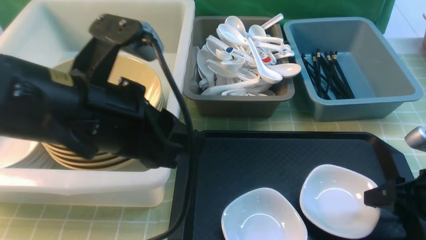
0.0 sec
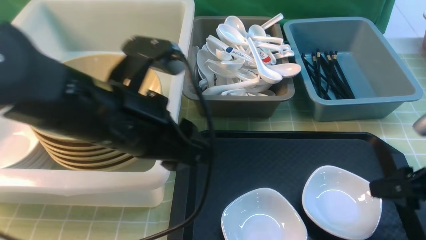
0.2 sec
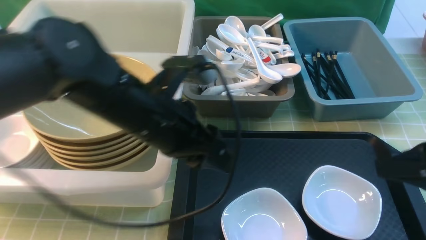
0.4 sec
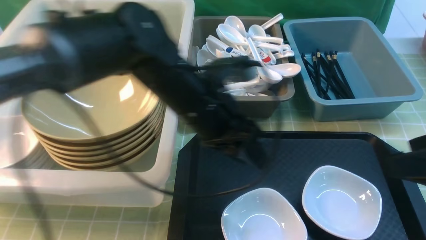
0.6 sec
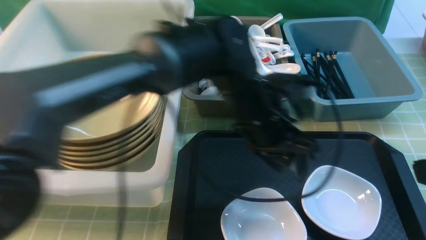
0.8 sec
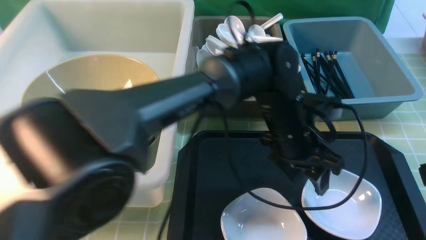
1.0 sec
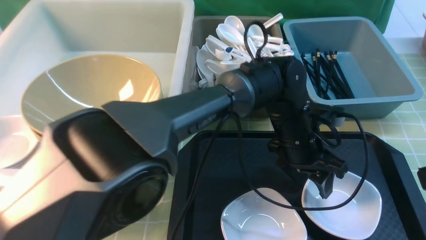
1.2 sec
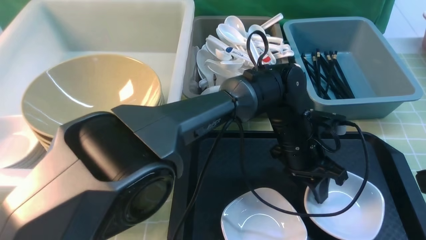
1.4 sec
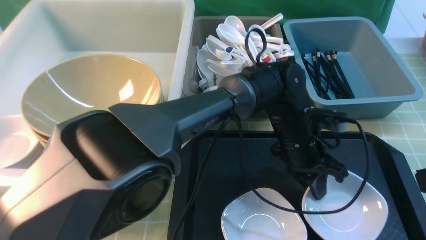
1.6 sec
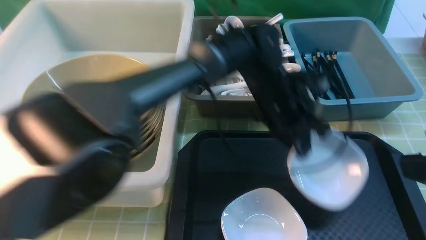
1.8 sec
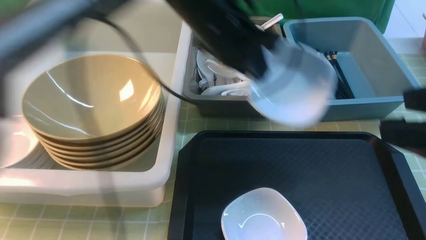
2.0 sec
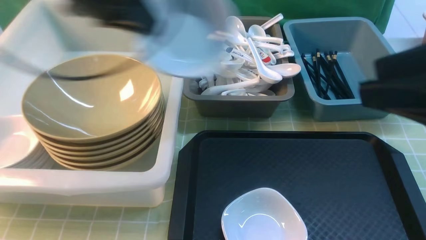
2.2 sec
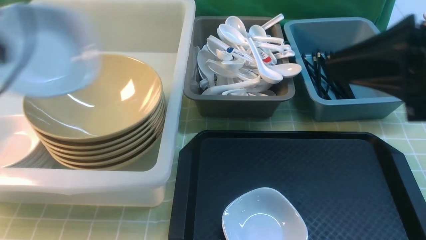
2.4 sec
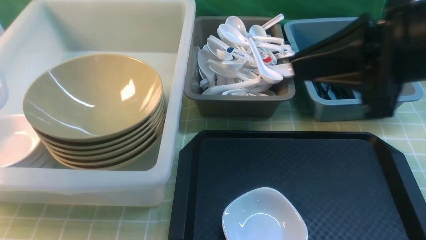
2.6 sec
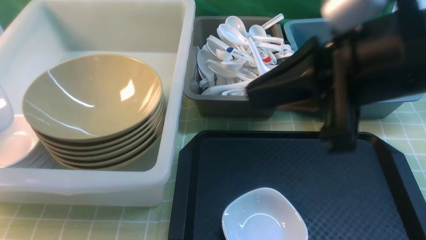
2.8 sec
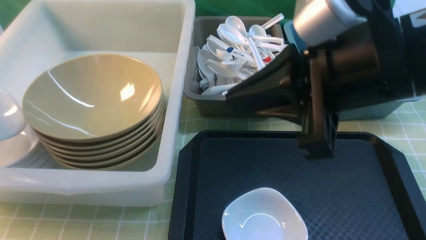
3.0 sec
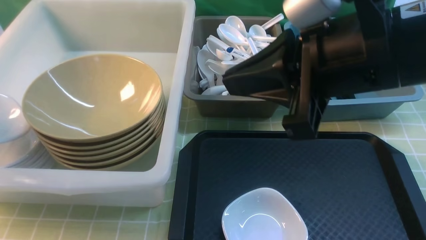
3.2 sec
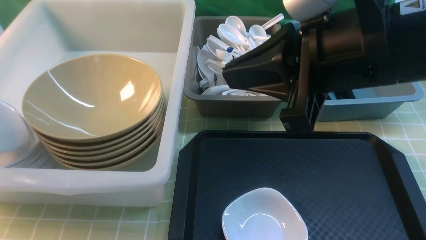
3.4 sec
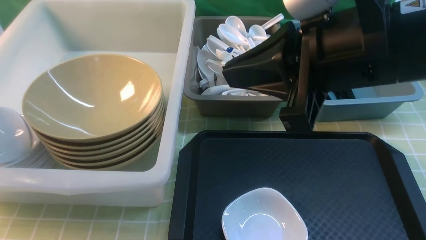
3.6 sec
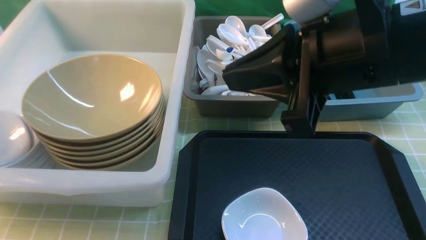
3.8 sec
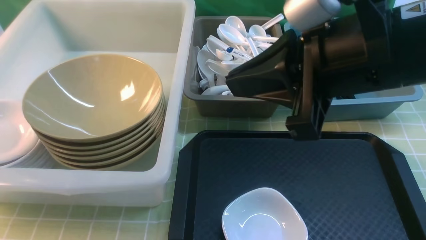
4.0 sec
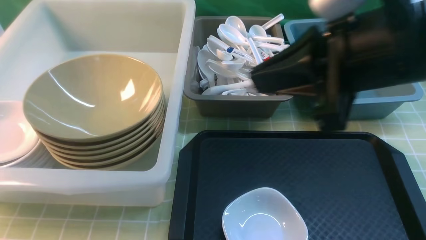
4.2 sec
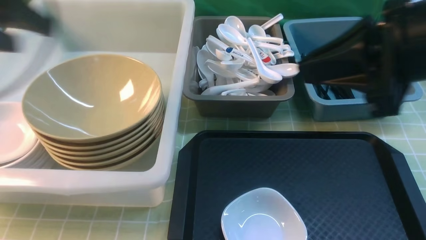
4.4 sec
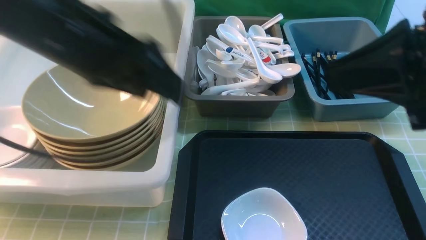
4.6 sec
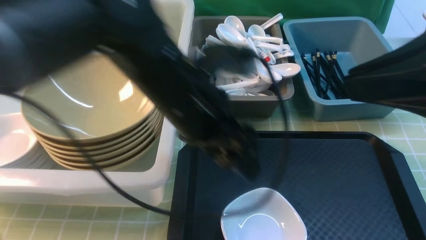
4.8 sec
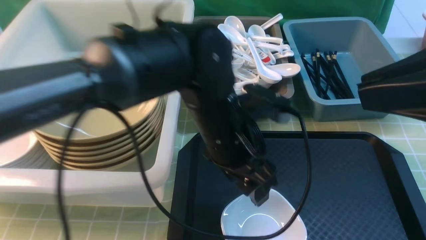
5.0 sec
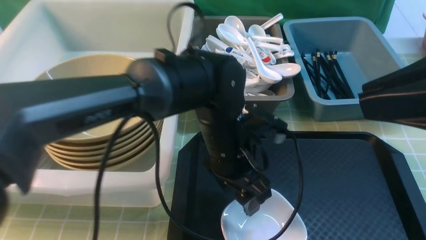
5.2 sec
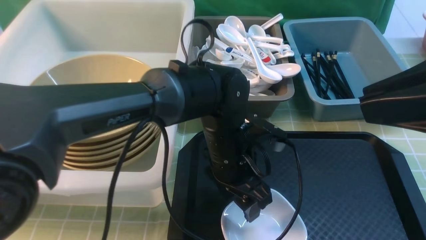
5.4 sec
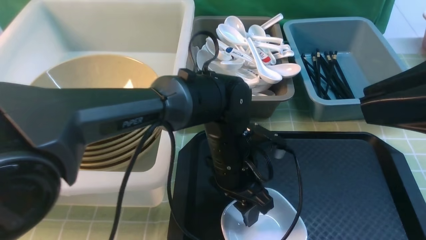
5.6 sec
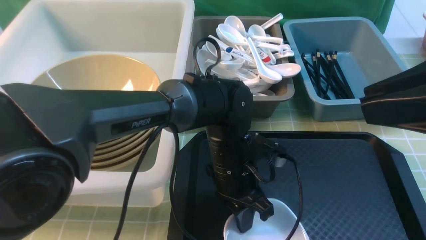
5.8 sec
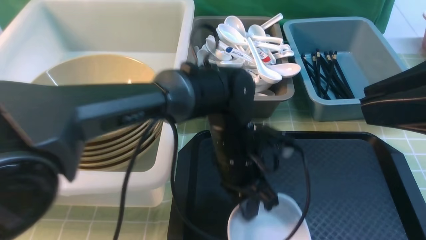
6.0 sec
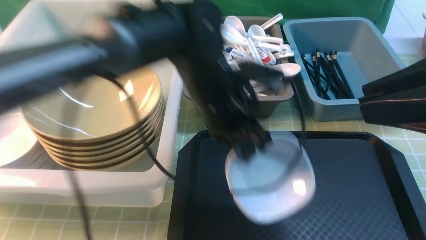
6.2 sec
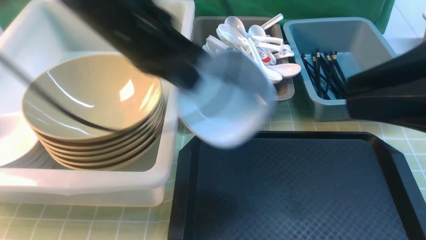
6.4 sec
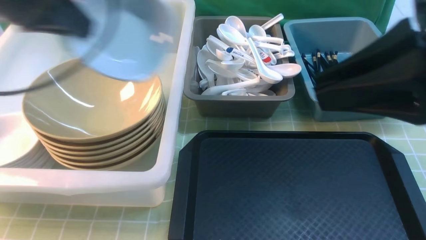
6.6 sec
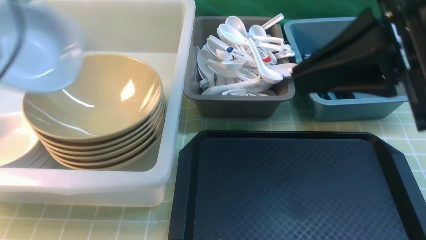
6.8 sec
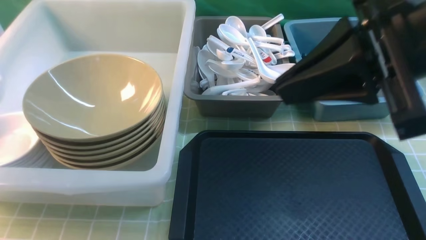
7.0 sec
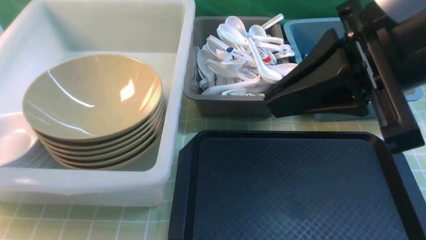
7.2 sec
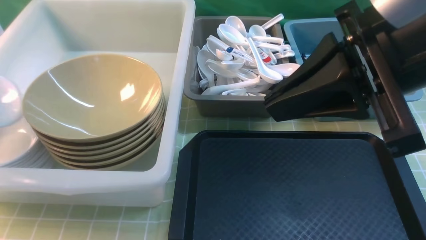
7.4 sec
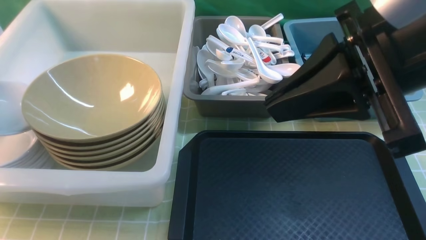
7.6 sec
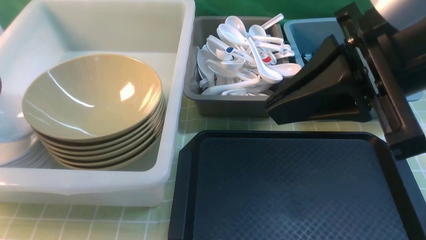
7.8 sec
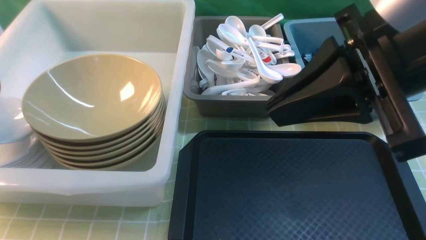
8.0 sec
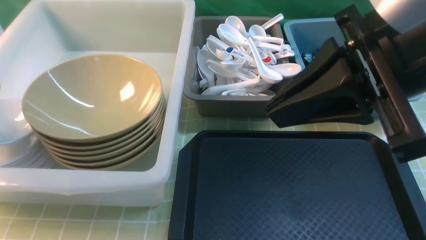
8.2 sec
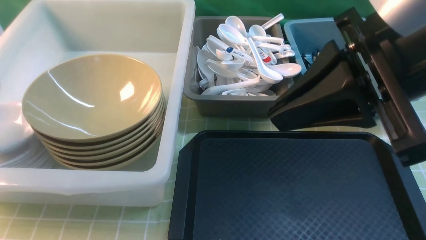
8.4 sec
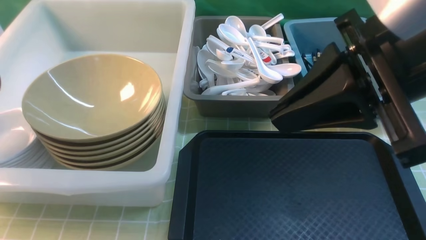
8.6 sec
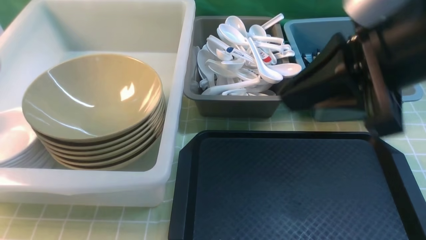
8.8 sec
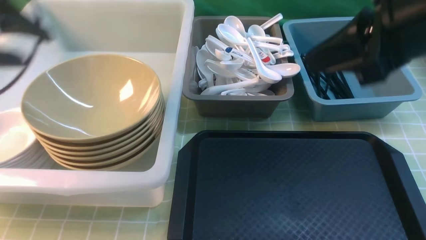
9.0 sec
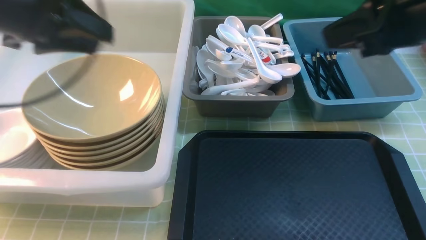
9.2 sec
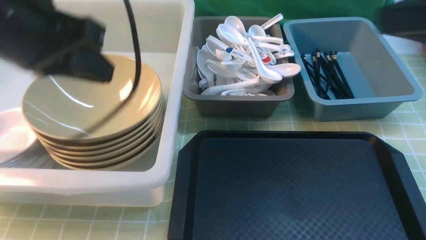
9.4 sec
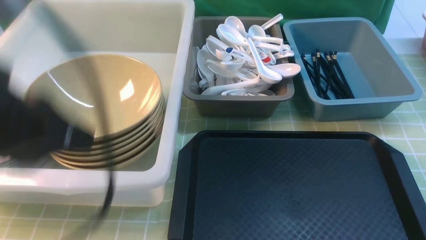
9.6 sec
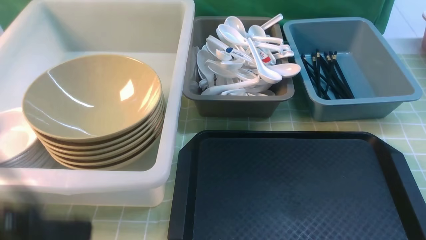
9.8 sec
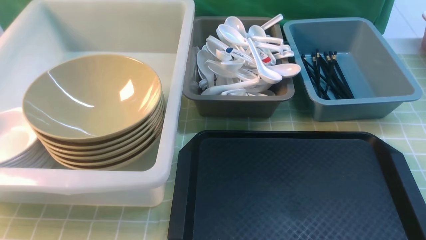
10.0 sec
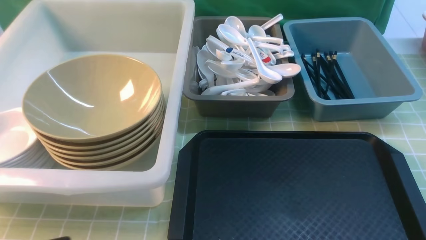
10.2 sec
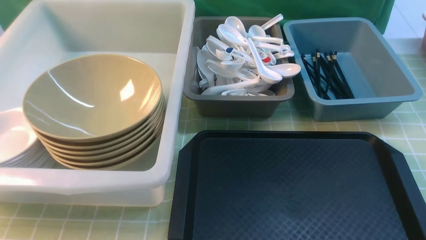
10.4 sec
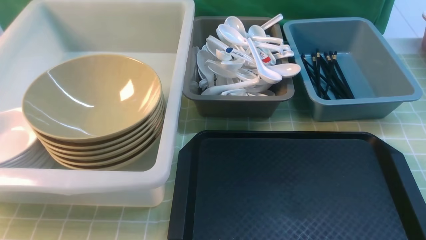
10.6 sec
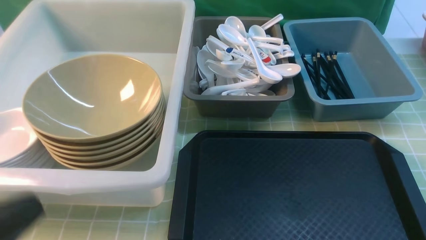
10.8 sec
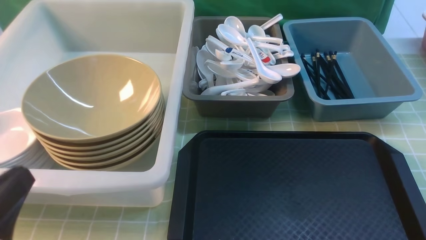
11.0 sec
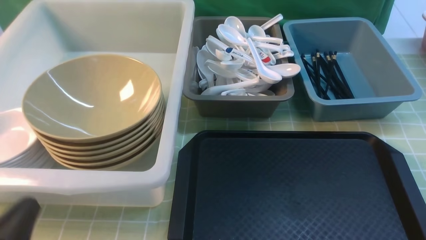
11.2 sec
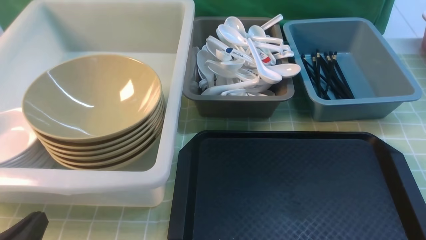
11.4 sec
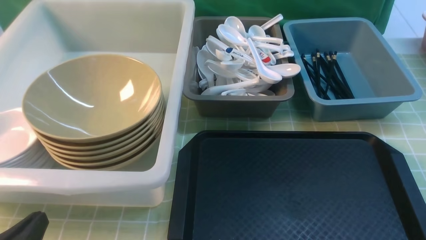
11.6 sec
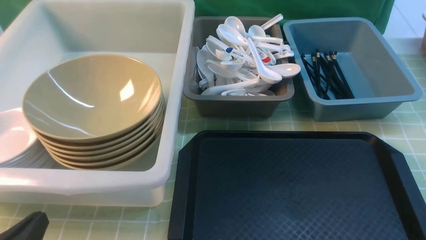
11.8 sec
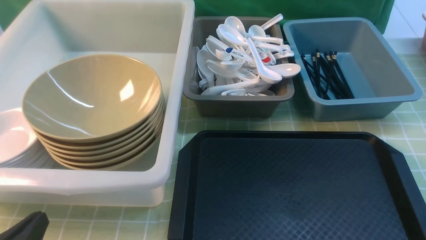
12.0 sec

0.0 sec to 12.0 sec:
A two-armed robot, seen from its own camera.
Task of the whole recording: on green table put chopsticks spoon bowls plates into blue grey white boxes.
Step, 0.8 sec to 1.6 sec: use the left arm to grab the plate.
Step, 1.8 sec to 4.2 sec: use the left arm to put the plate into the large storage box on the left.
Step, 4.4 sec to 6.0 sec: use the left arm to grab the plate.
Step, 6.2 sec to 8.8 sec: use the left arm to put the plate into the large storage box on the left.
0.0 sec to 1.6 sec: The left gripper goes some 30 cm to the right, downward and forward, and closes up. The right gripper travels upward and backward by about 20 cm.
1.6 sec to 3.0 sec: The left gripper shifts some 50 cm to the left. The right gripper travels to the left and forward by some 15 cm, and closes.
3.0 sec to 4.4 sec: The right gripper travels to the right by approximately 5 cm. The left gripper heads to the right and upward, covering some 20 cm, and opens up.
4.4 sec to 6.0 sec: The right gripper goes approximately 5 cm backward; the left gripper shifts approximately 30 cm to the right and downward, and closes.
6.0 sec to 7.6 sec: The right gripper goes approximately 10 cm to the left and forward; the left gripper goes some 40 cm to the left.
7.6 sec to 9.0 sec: The left gripper shifts roughly 15 cm to the right and upward, and opens up.
9.0 sec to 10.4 sec: The right gripper goes some 25 cm backward, downward and to the right; the left gripper is displaced backward by about 30 cm, and closes its fingers.
10.4 sec to 12.0 sec: The left gripper shifts approximately 15 cm downward.

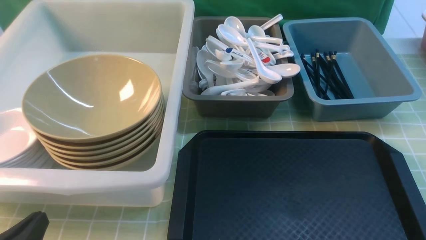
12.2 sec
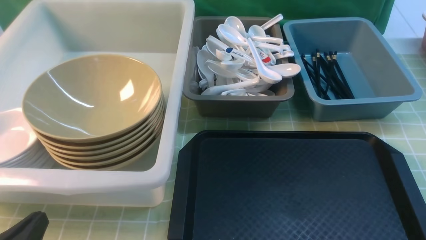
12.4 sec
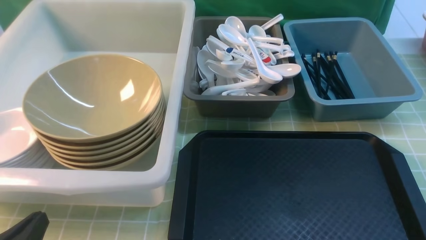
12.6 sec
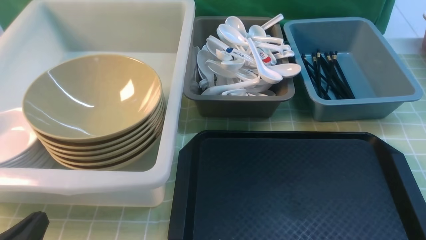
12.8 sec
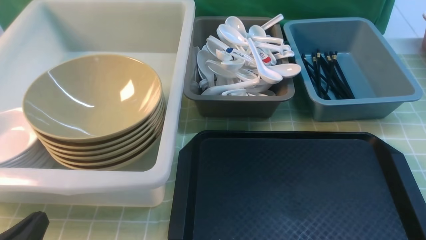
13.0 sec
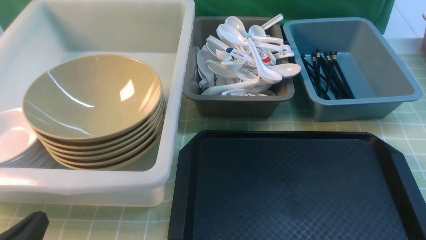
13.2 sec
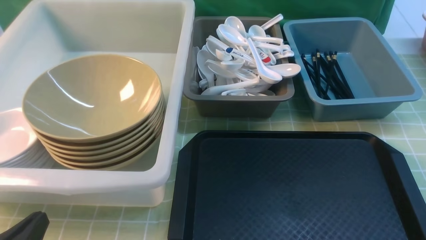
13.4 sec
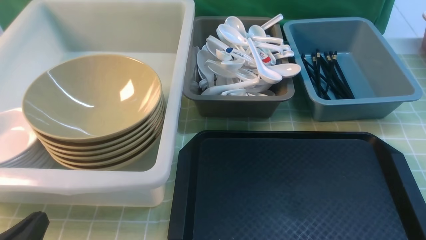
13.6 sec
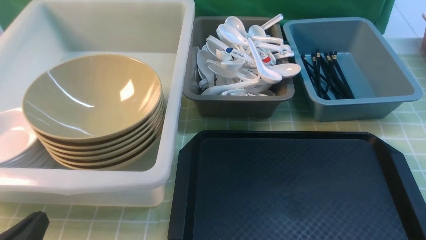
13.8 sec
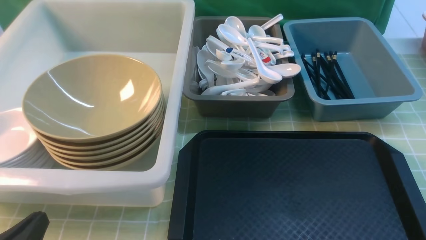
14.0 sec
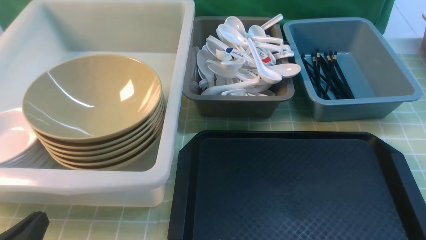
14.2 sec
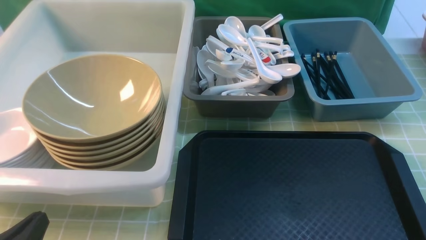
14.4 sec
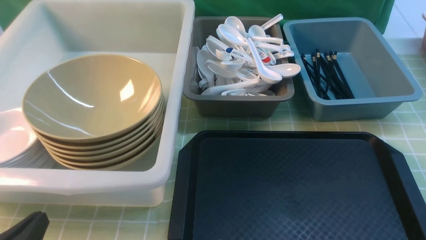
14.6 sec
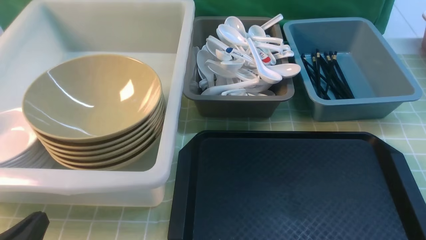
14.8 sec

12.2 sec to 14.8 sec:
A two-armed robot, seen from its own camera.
Task of the whole recording: on green table put chopsticks spoon bowls plates into blue grey white boxes.
13.4 sec to 14.8 sec: Both grippers stay put.

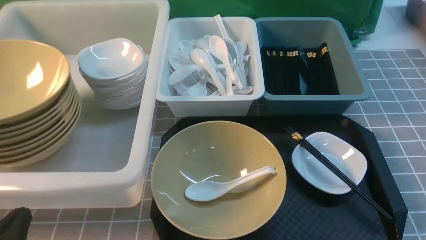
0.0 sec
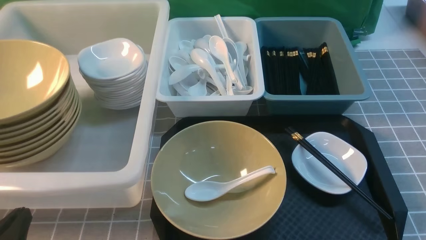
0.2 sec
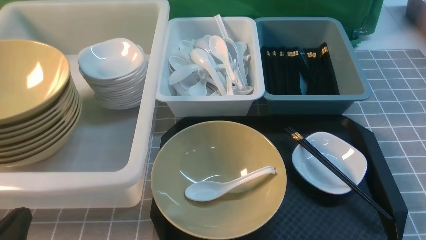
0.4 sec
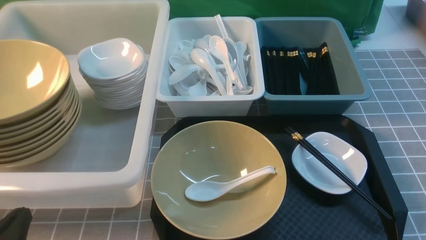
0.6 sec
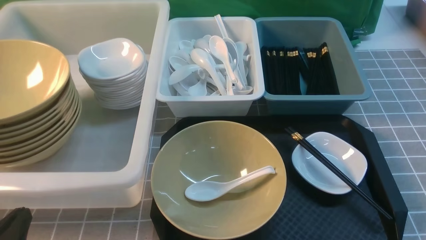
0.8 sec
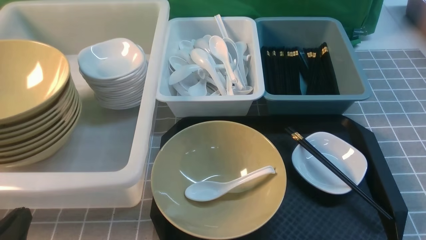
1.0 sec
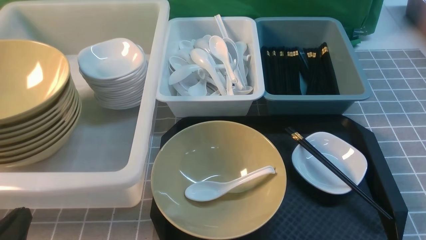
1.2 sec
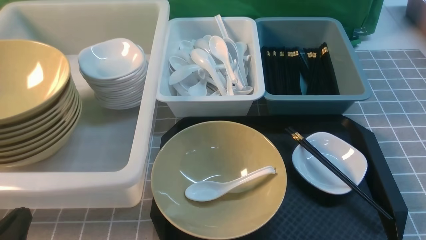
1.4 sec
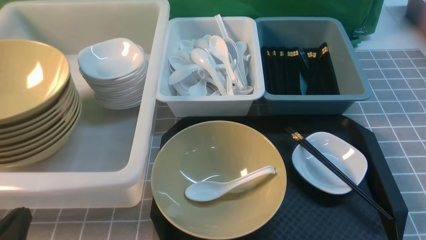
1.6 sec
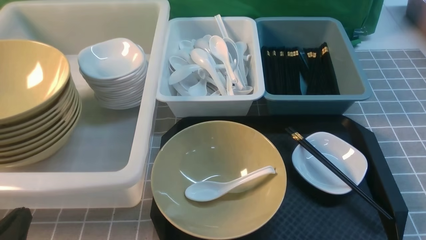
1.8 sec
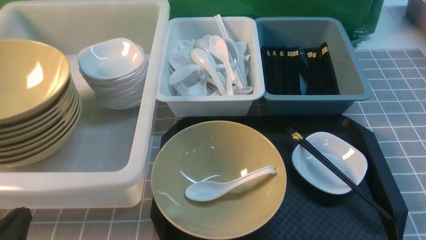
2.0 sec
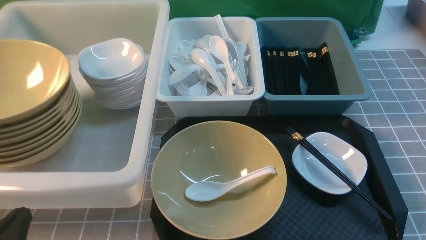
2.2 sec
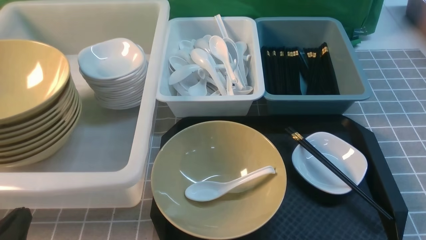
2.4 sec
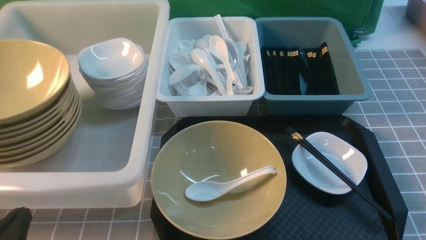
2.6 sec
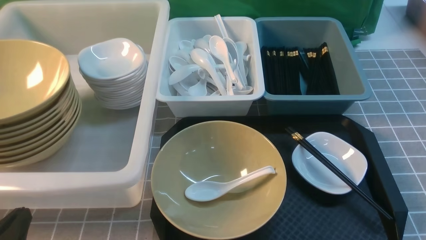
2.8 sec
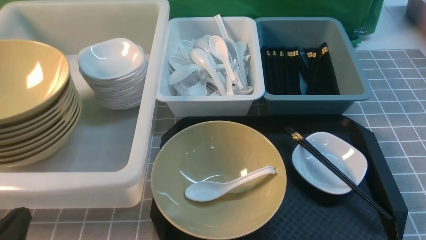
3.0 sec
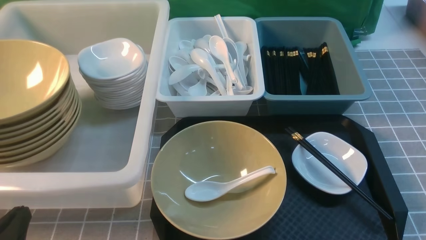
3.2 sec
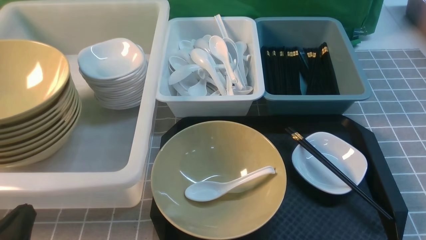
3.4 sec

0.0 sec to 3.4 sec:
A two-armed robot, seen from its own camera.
Task of the whole recording: on grey table put chopsticks spoon bowls plates into blue grey white boxes.
0.0 sec to 1.6 sec: Both grippers stay put.
